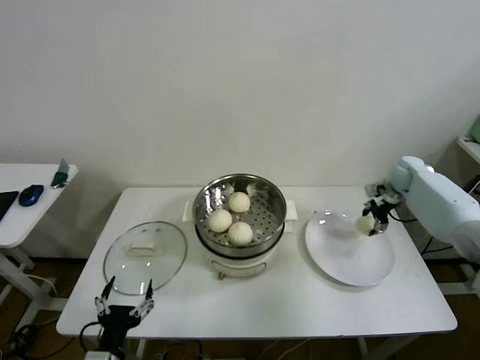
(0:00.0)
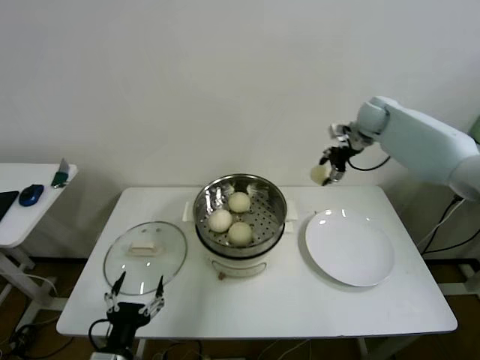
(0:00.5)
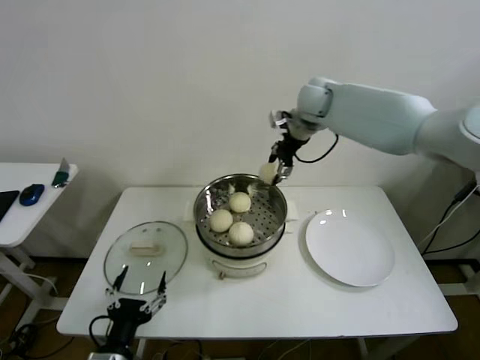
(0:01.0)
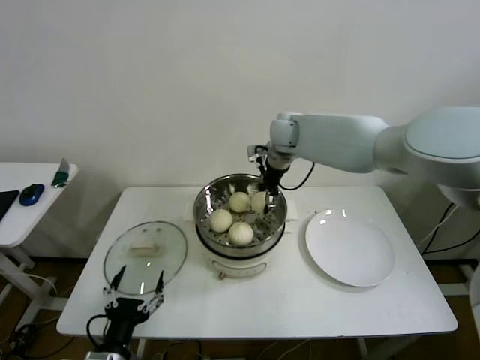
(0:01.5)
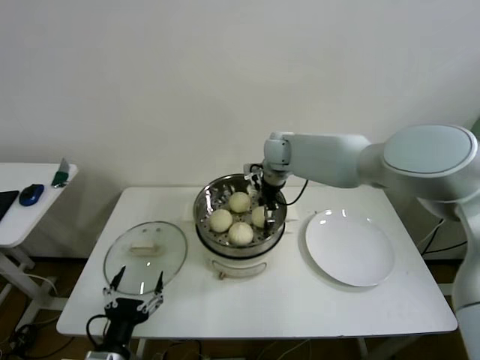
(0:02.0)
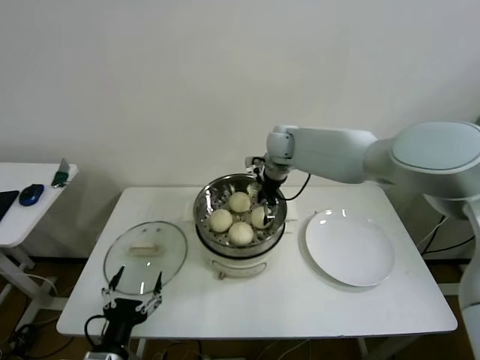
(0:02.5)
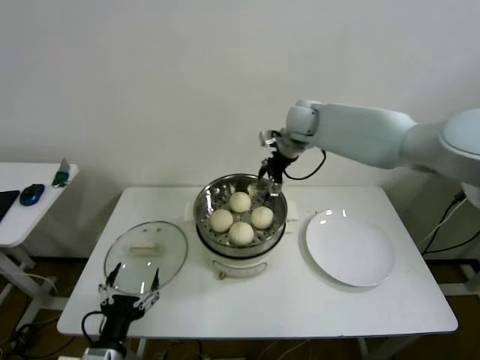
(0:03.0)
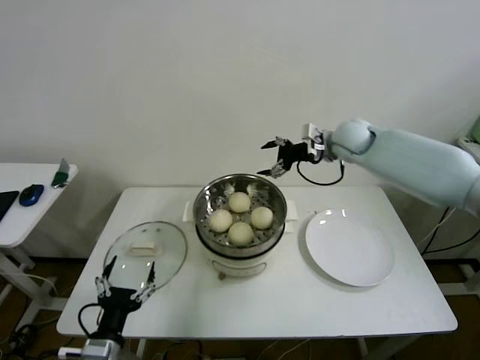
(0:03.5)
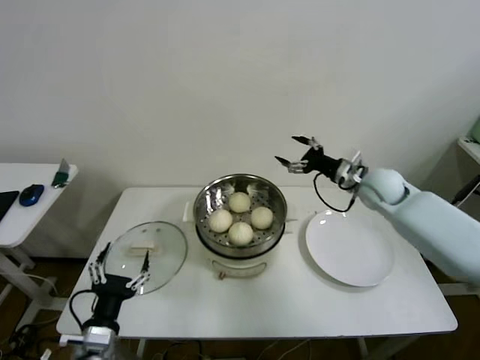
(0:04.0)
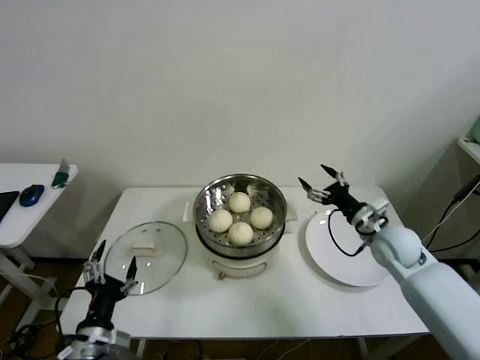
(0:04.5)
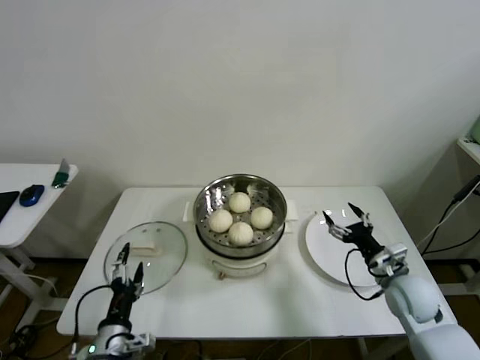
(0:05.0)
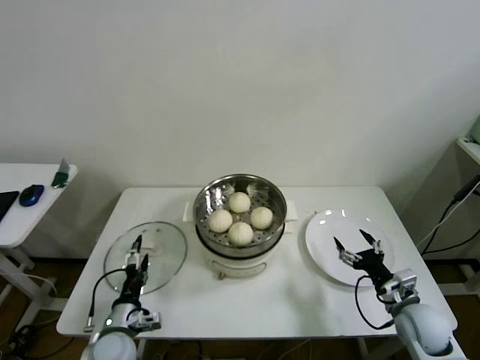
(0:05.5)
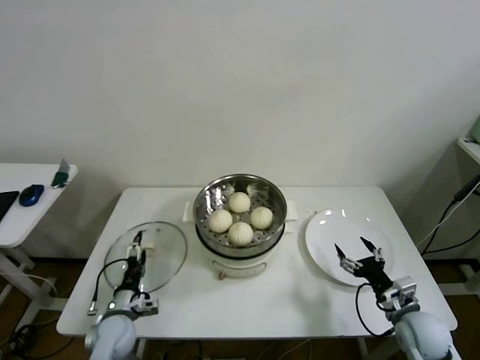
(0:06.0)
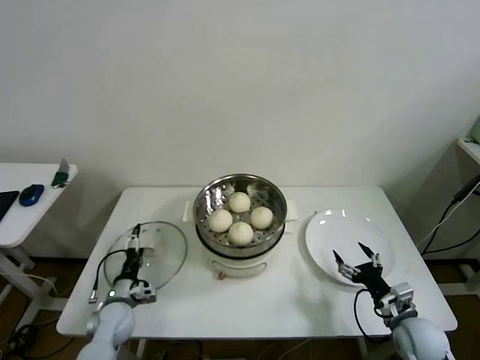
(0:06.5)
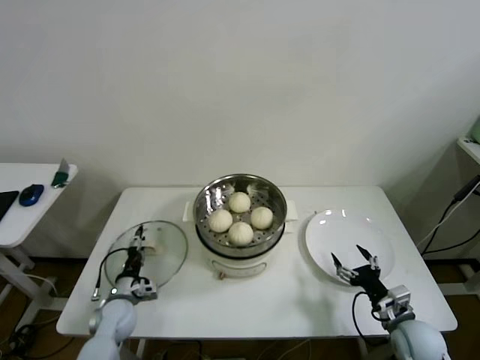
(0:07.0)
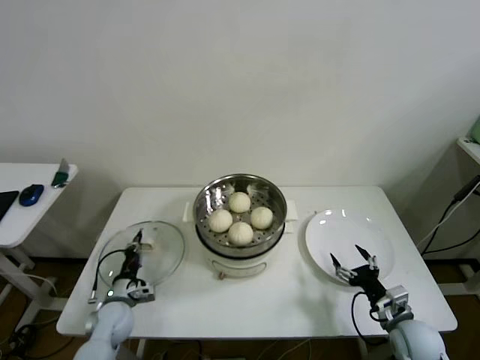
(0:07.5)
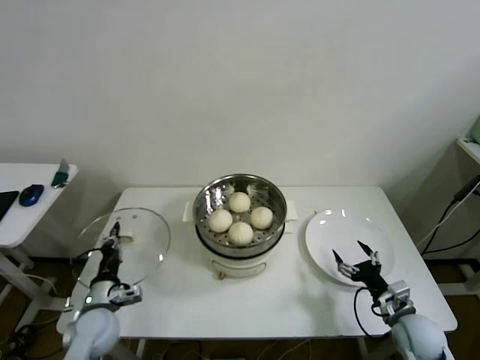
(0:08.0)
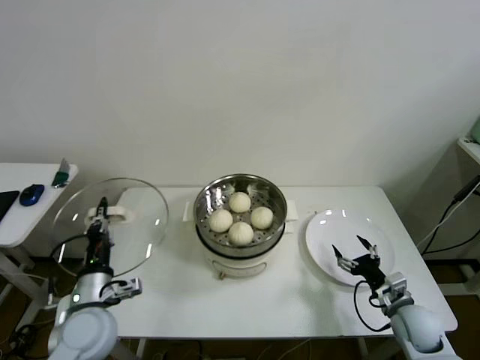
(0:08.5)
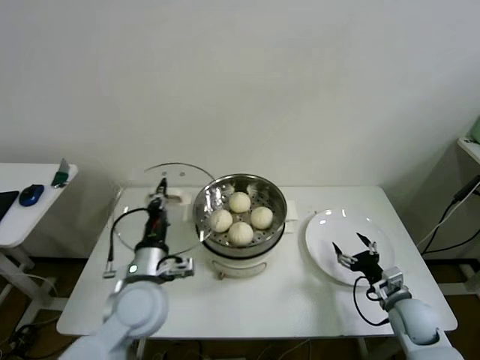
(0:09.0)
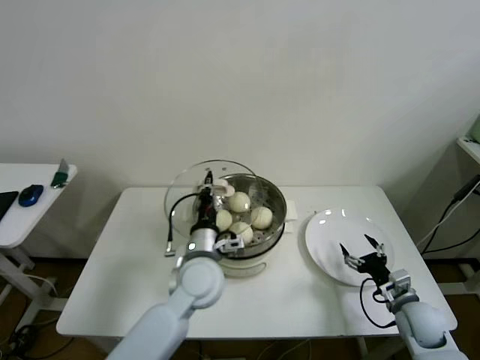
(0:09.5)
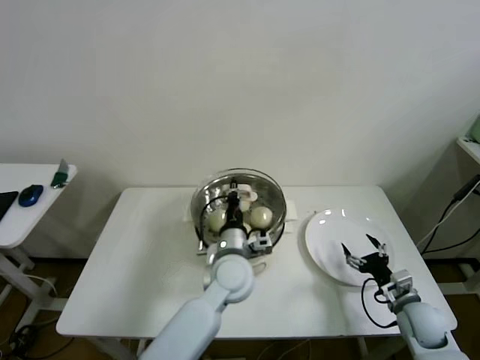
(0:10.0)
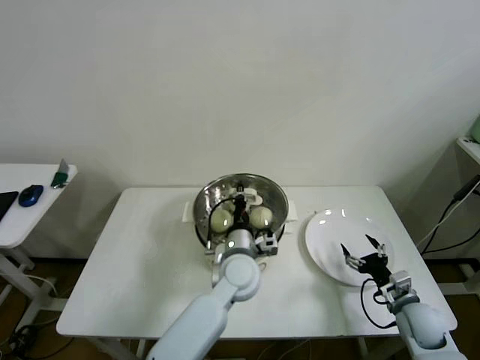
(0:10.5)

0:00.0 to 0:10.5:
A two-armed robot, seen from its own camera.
Step, 0:00.0 to 0:02.0: Place the baozi on the steamer with right gripper.
Step, 0:03.0 to 0:07.0: Grasp the pot lid with left gripper.
0:00.0 to 0:02.0: The right gripper travels to the left by some 35 cm.
0:02.0 to 0:04.0: The right gripper shifts about 25 cm to the right and backward, and opens up.
0:04.0 to 0:06.5: The left gripper travels forward and downward by some 20 cm. The right gripper heads backward and downward, covering some 35 cm.
0:06.5 to 0:08.5: The left gripper is displaced upward and backward by some 20 cm, and closes up.
0:08.5 to 0:10.5: The left gripper heads to the right and forward, covering some 30 cm.

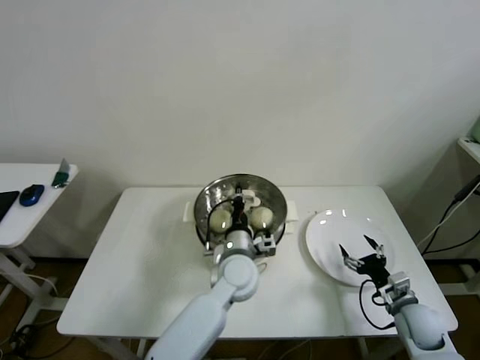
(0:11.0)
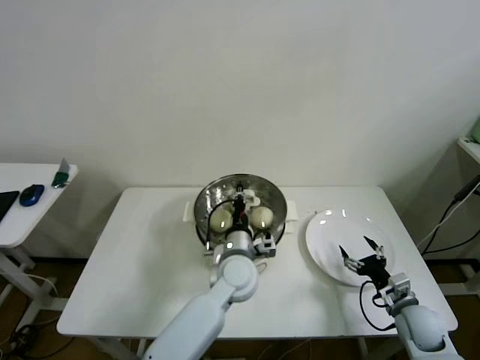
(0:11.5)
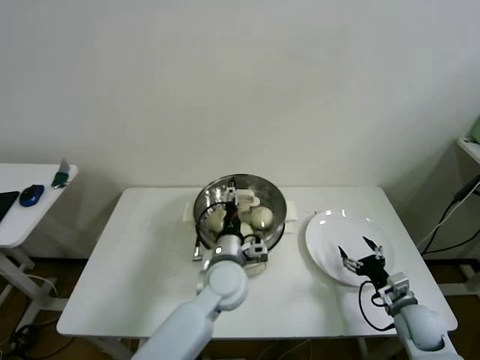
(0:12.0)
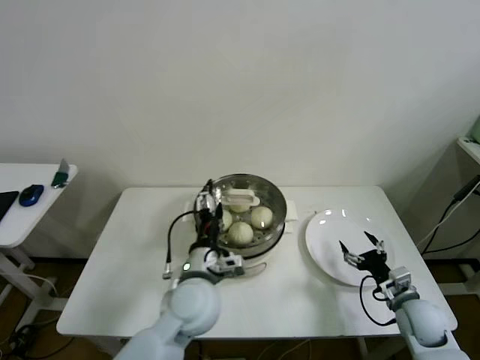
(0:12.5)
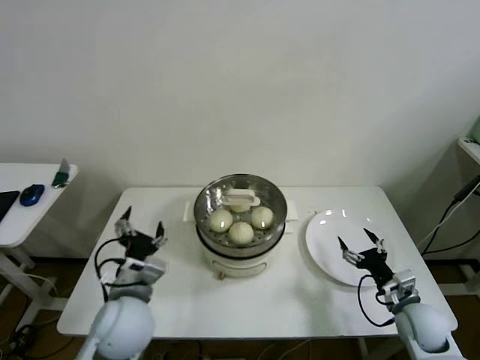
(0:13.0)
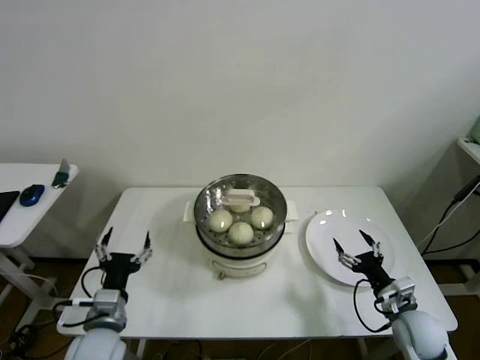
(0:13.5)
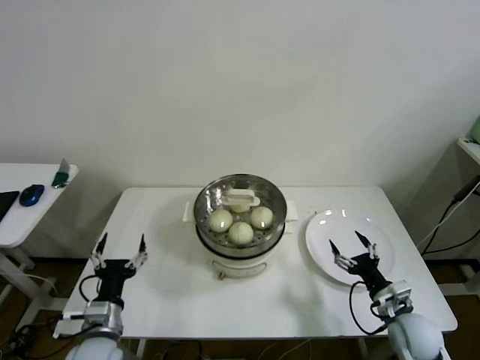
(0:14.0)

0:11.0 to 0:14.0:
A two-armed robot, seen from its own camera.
0:11.0 to 0:12.5: The left gripper shifts approximately 10 cm backward and to the left, and opens up.
0:12.5 to 0:14.0: The left gripper heads to the left and backward, covering approximately 20 cm.
